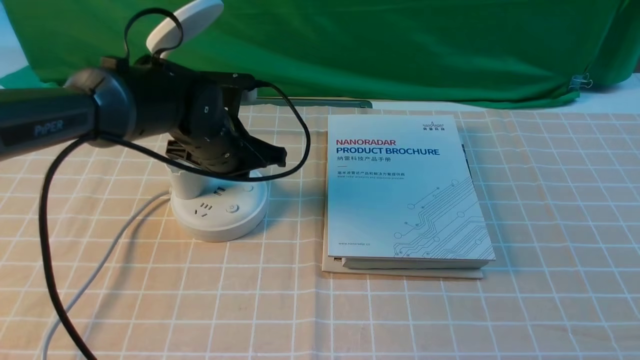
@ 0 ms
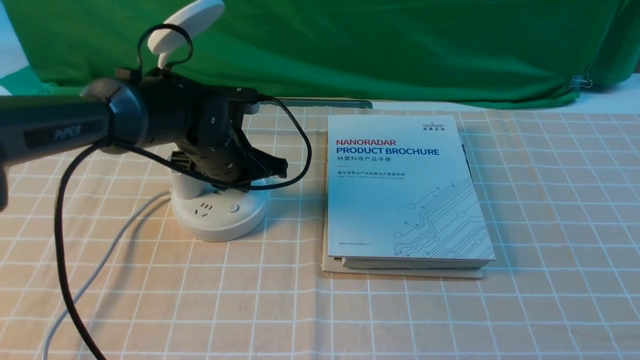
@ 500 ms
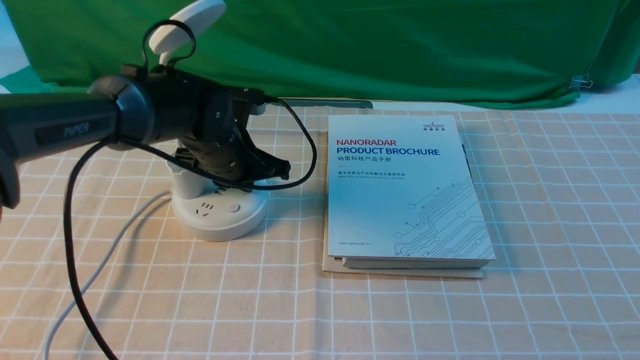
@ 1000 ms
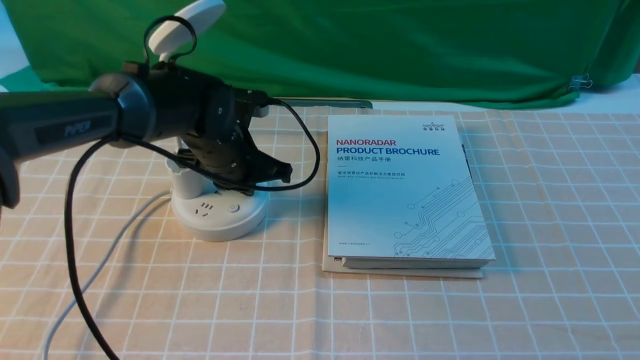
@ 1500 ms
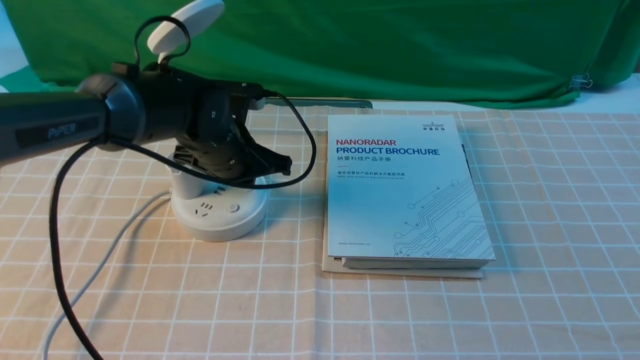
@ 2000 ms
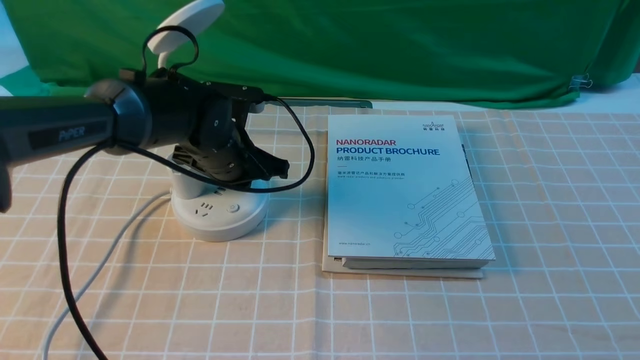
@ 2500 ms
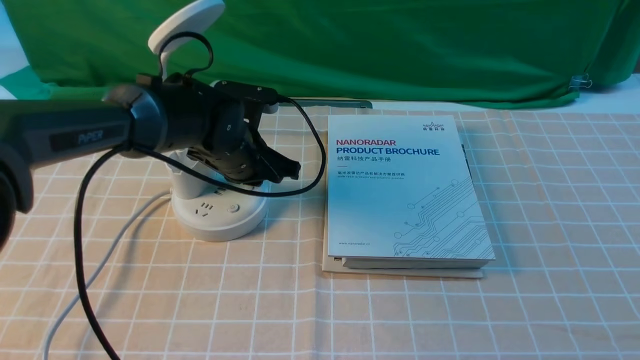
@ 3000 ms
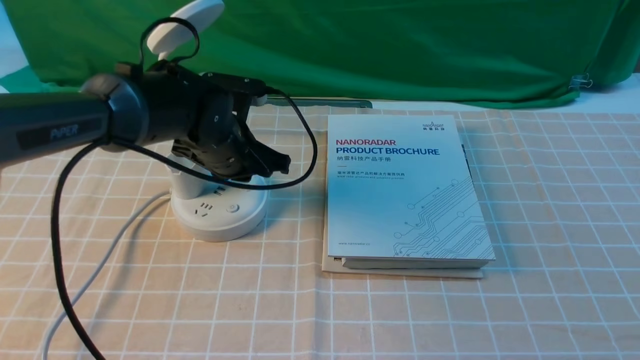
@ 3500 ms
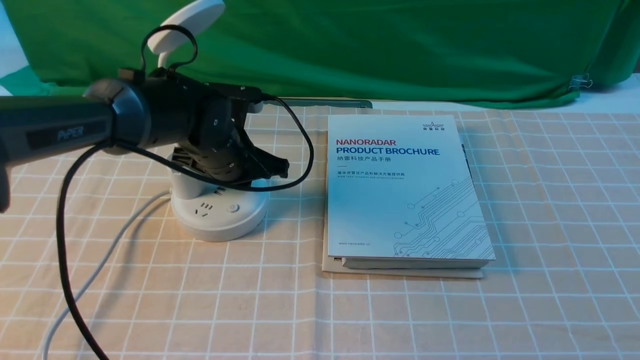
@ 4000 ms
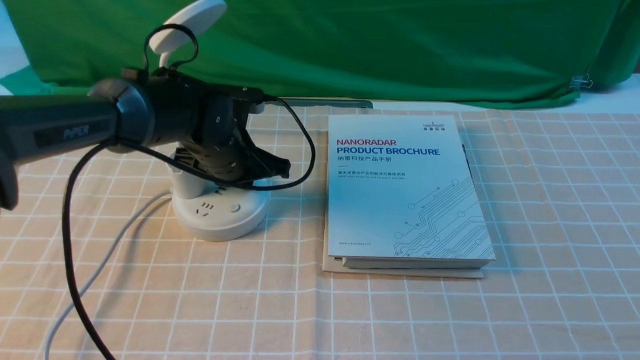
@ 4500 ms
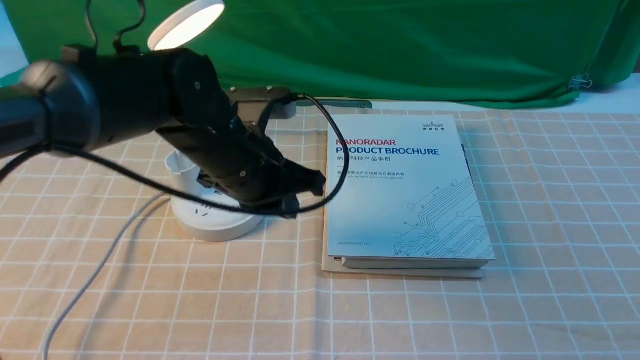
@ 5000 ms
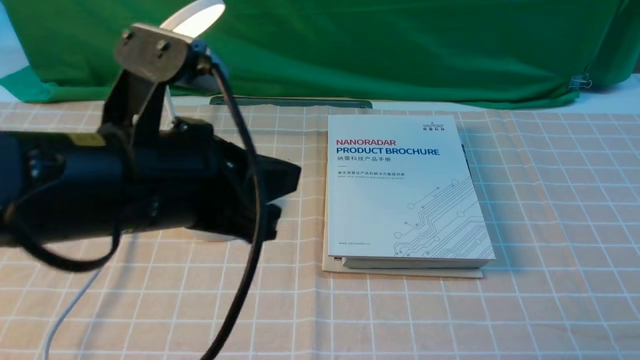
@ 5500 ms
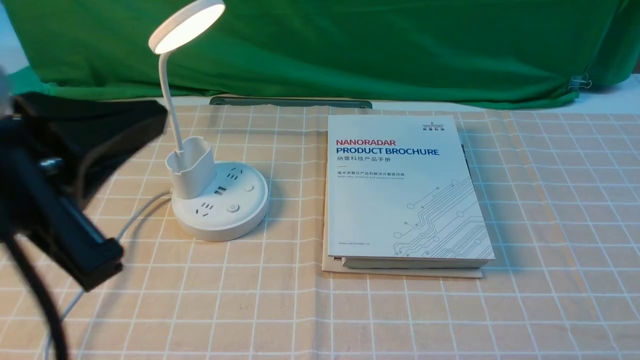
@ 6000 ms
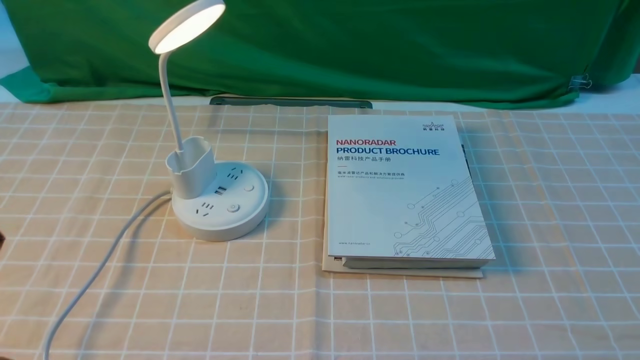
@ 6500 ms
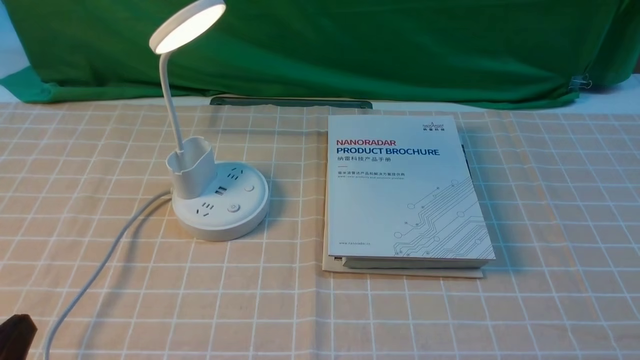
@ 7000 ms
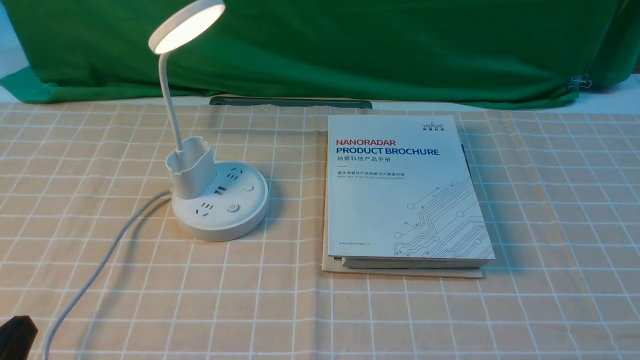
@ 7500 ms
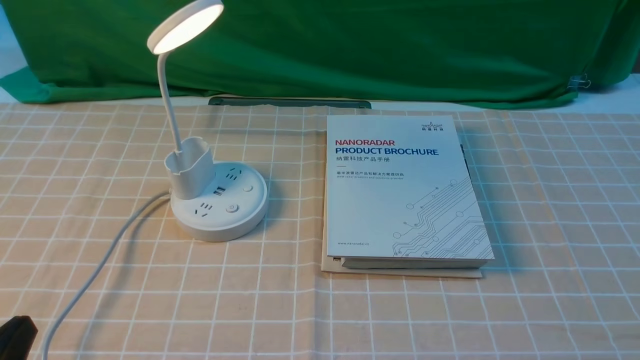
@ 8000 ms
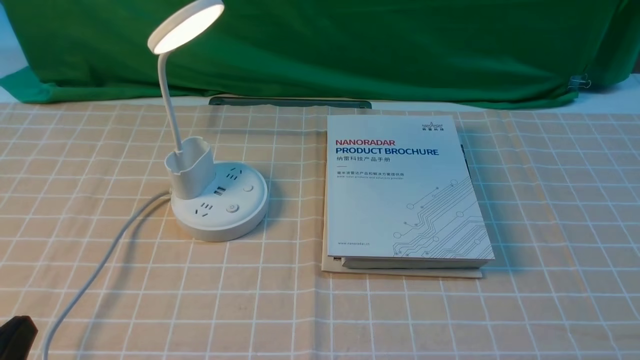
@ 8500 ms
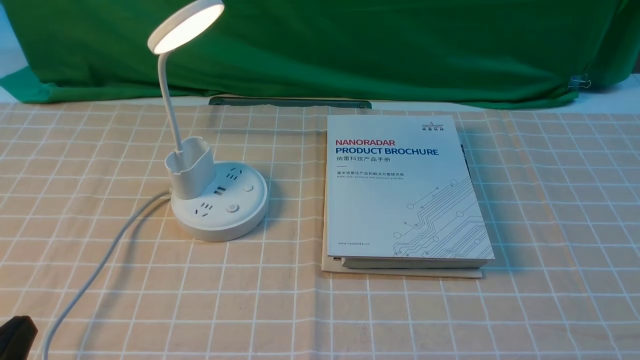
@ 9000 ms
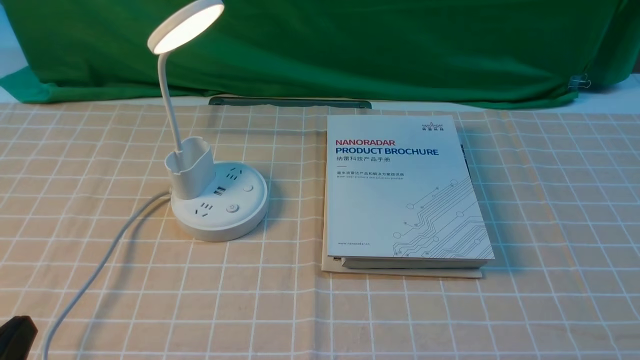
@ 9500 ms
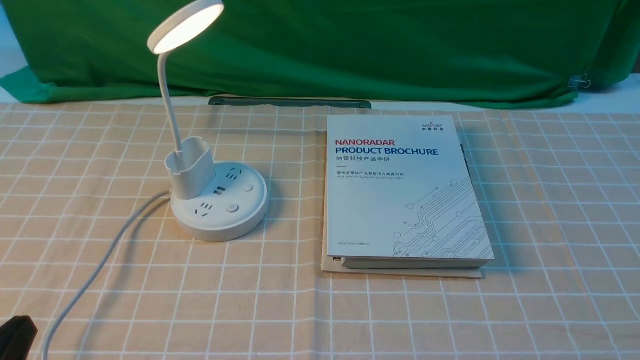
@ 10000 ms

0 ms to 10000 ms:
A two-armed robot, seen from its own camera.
Step, 0 ms to 5000 ms: use the left arm to press the button switch on the lamp holder.
0 ms to 4000 ms: The grippers stay close to where they were, moving slightly.
4000 ms to 6000 ms: The left gripper moves backward and upward, some 30 cm.
6000 ms to 8000 ms: The left gripper is displaced downward, to the left and backward by approximately 20 cm.
8000 ms to 10000 ms: The two grippers keep their place.
